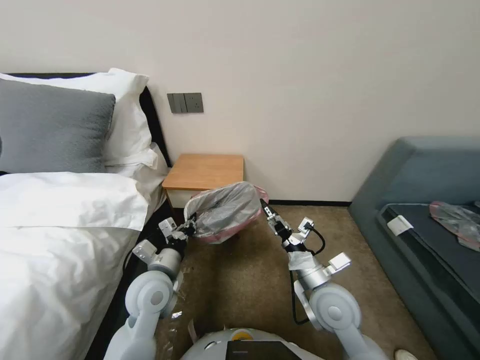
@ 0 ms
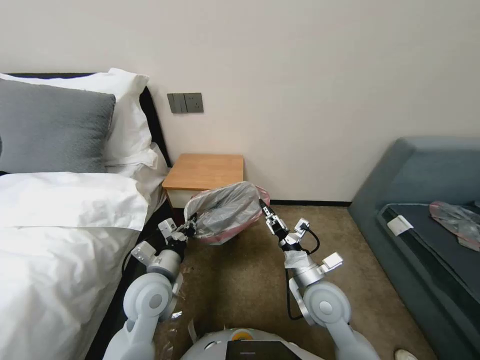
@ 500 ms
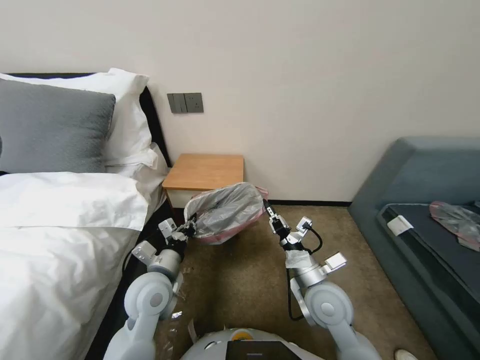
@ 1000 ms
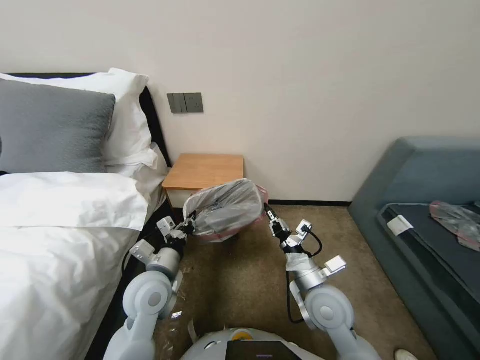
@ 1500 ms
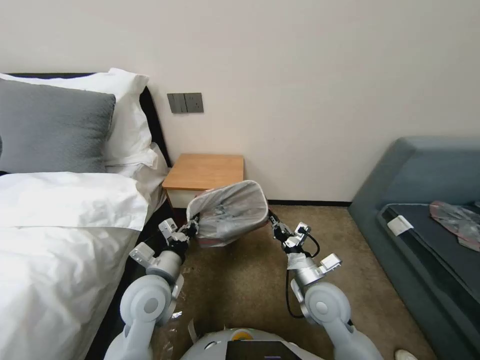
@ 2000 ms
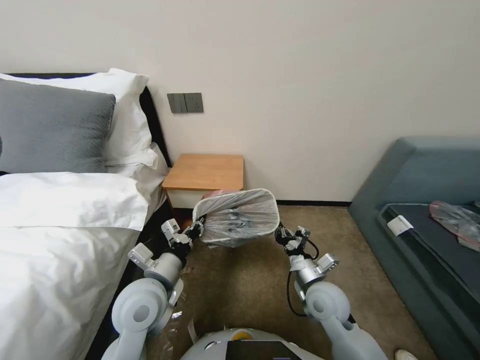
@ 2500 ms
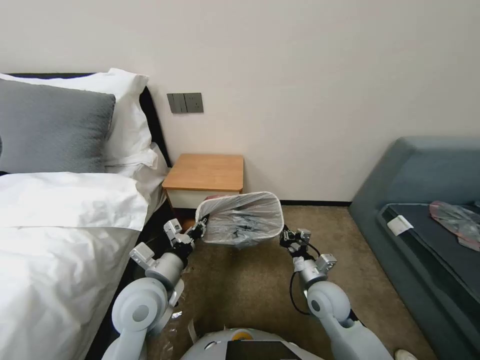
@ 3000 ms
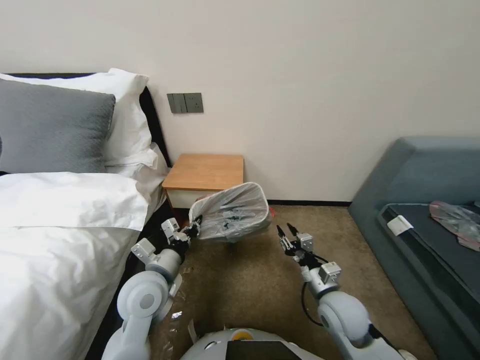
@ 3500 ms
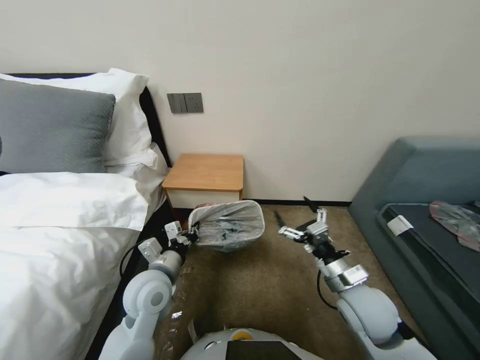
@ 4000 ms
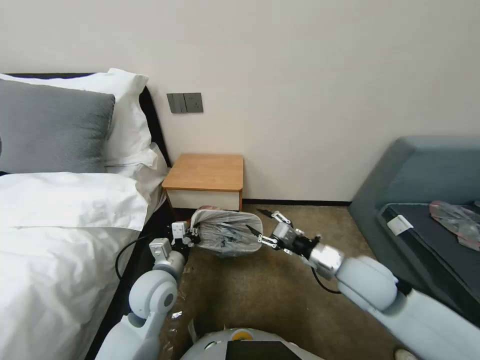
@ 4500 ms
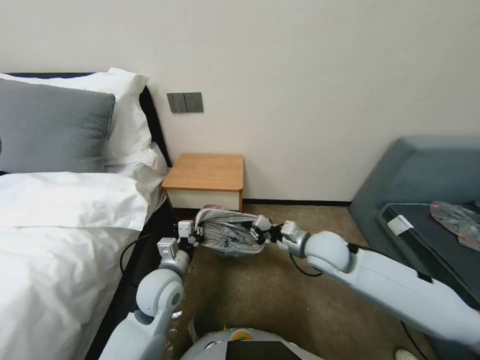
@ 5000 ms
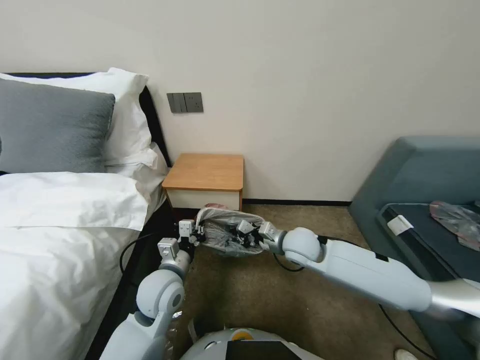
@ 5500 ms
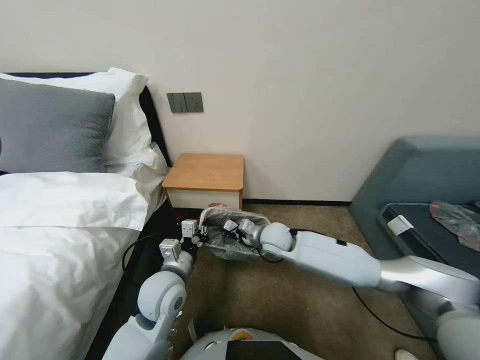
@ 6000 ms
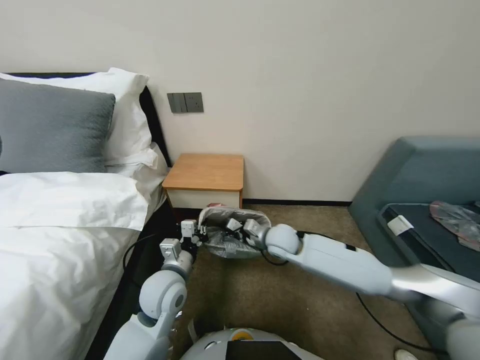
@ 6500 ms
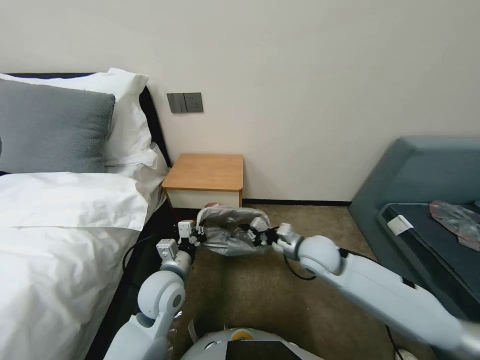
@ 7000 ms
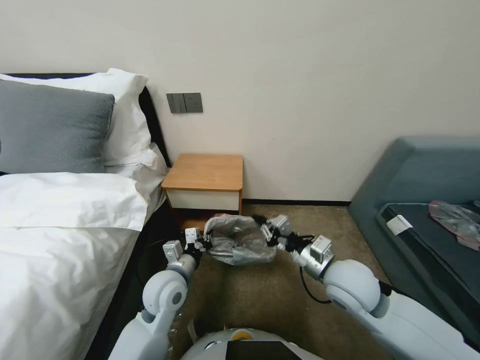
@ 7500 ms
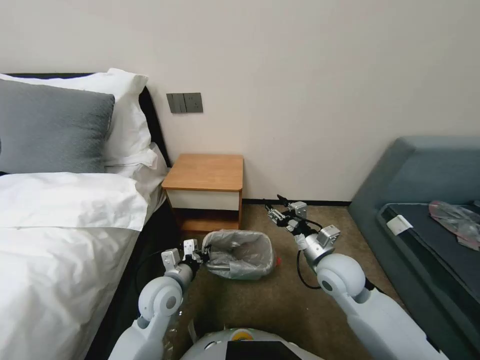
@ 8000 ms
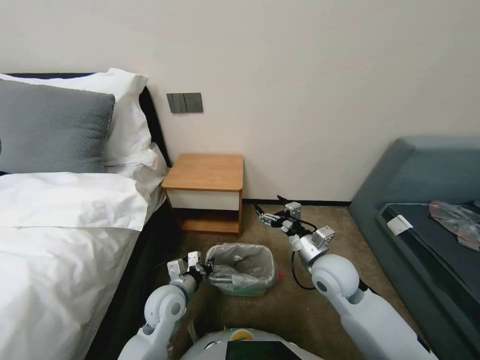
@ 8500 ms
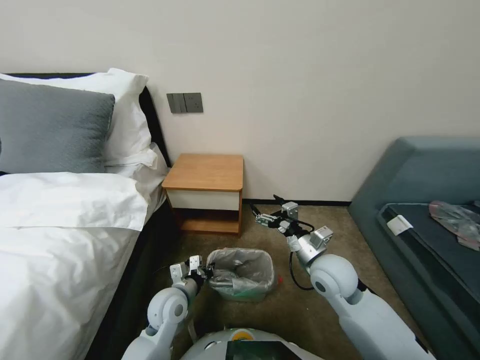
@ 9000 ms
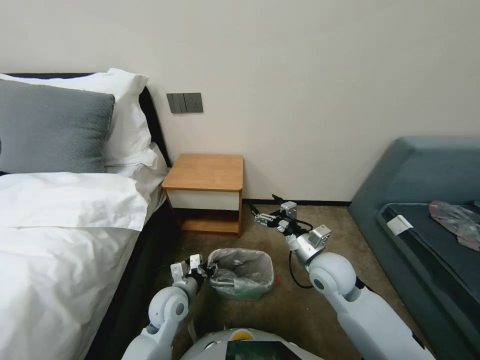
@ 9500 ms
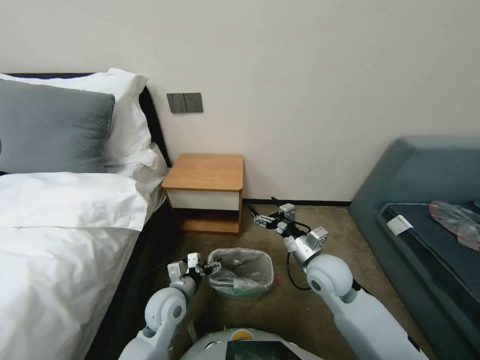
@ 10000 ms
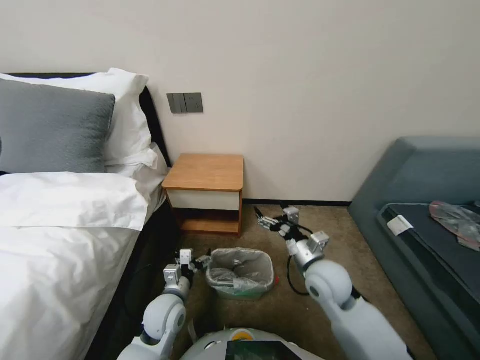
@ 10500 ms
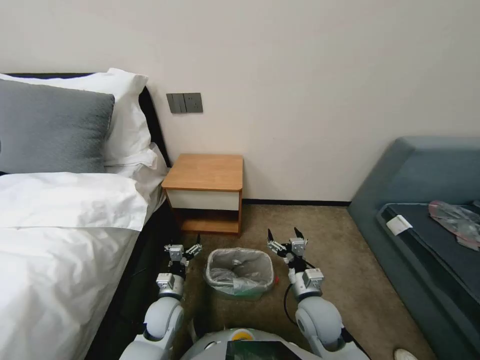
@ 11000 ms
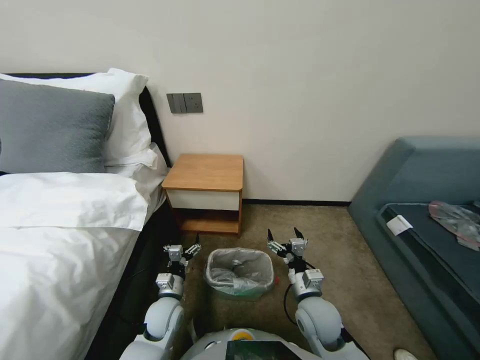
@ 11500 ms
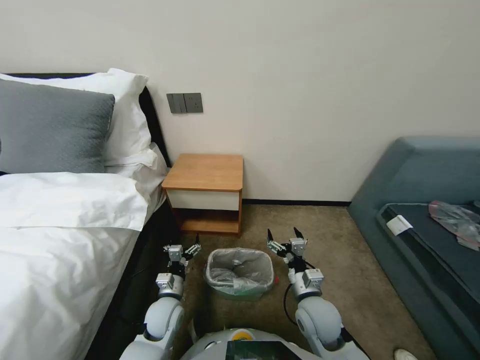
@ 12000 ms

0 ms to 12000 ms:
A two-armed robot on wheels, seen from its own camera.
Task of the whole recording: Pick up the garbage bag from the table and place it over the trash can.
0 ms to 2000 ms: The right gripper closes.
2000 ms to 4000 ms: The right gripper is displaced to the right by approximately 5 cm, and opens.
4000 ms to 6000 ms: The right gripper is displaced forward and to the left by about 25 cm, and closes its fingers.
6000 ms to 8000 ms: The right gripper shifts about 15 cm backward and to the right, and opens.
8000 ms to 10000 ms: The left gripper ends up about 5 cm from where it was, and opens up, while the right gripper opens.
10000 ms to 12000 ms: The left gripper moves downward, roughly 5 cm. Meanwhile the right gripper goes about 10 cm downward and backward.

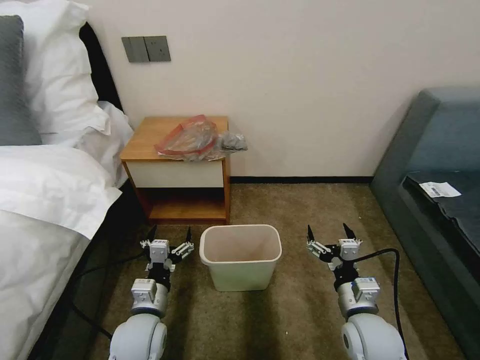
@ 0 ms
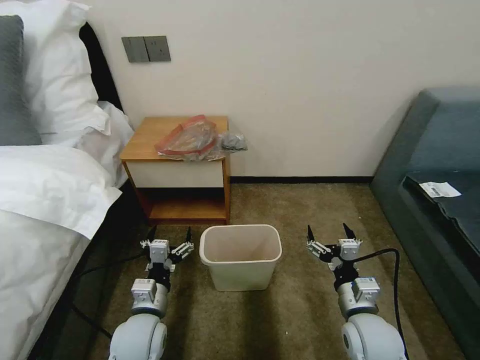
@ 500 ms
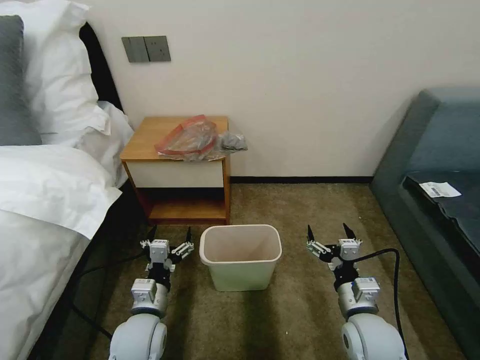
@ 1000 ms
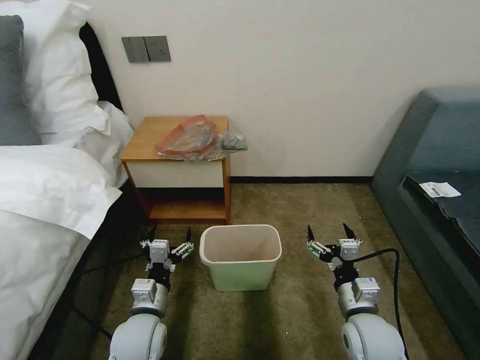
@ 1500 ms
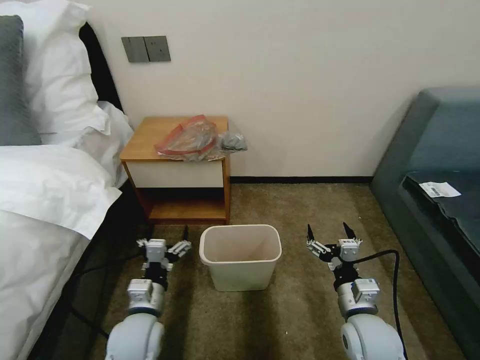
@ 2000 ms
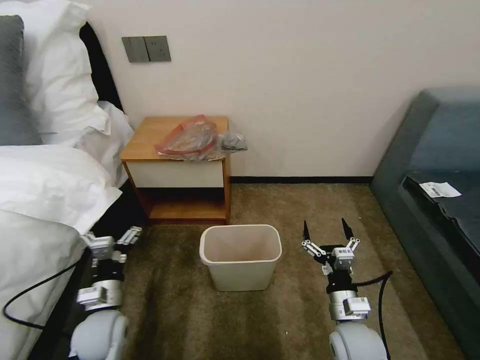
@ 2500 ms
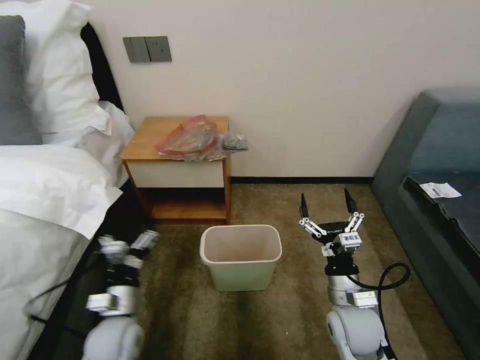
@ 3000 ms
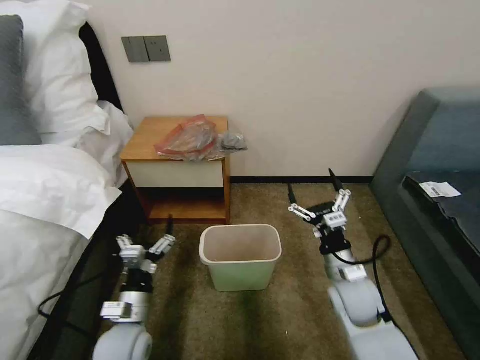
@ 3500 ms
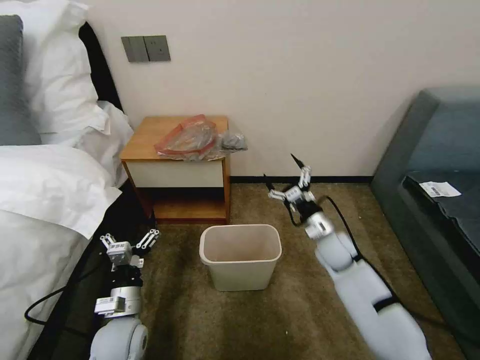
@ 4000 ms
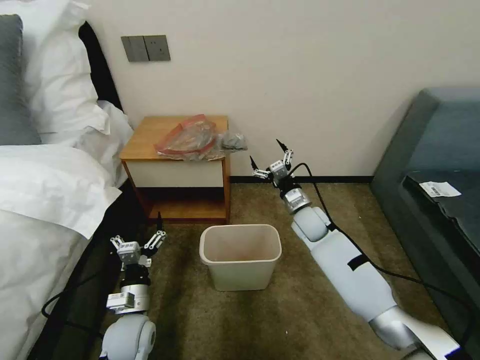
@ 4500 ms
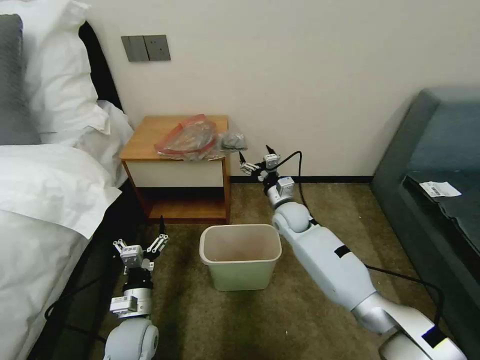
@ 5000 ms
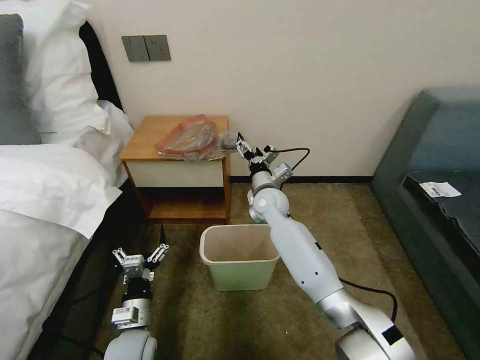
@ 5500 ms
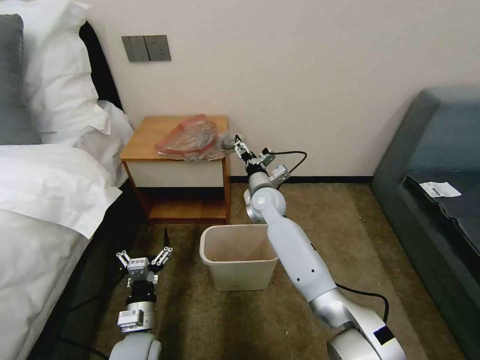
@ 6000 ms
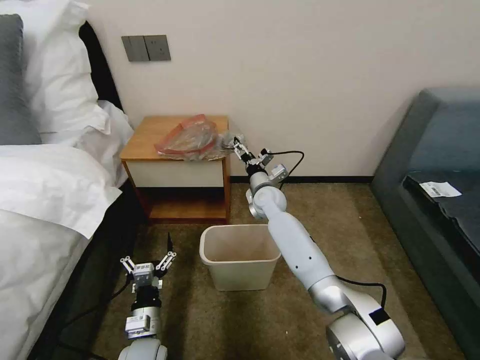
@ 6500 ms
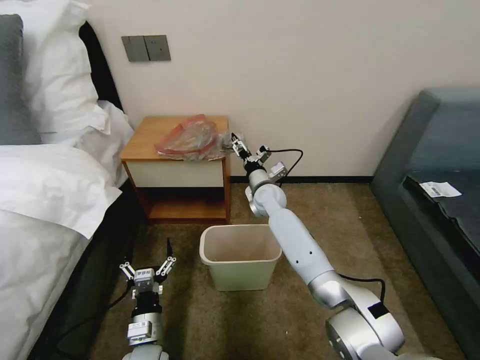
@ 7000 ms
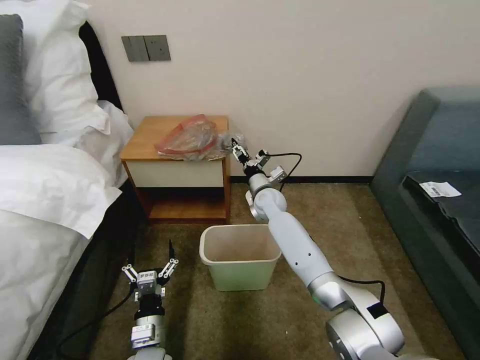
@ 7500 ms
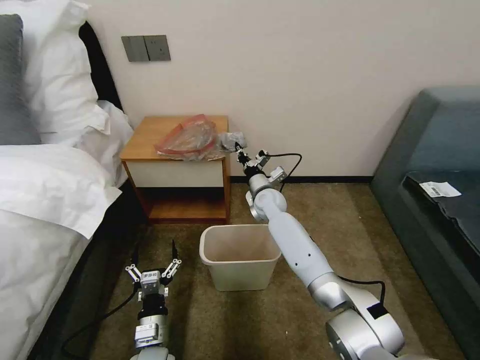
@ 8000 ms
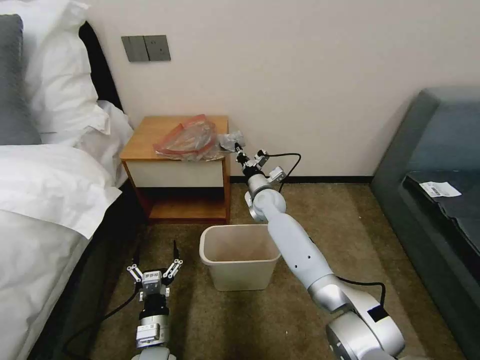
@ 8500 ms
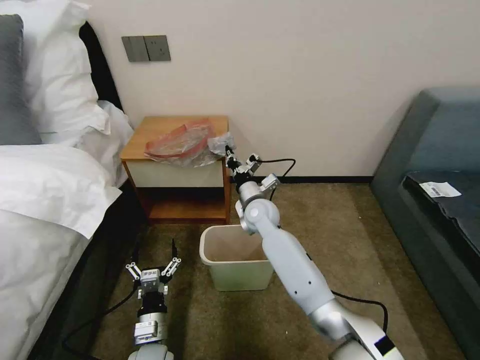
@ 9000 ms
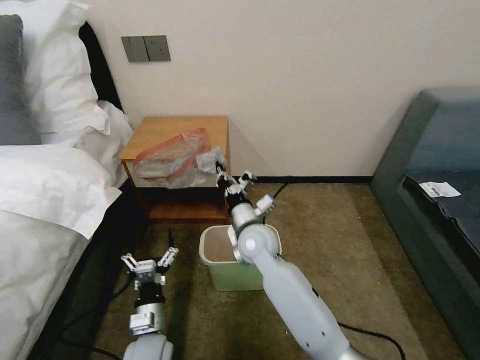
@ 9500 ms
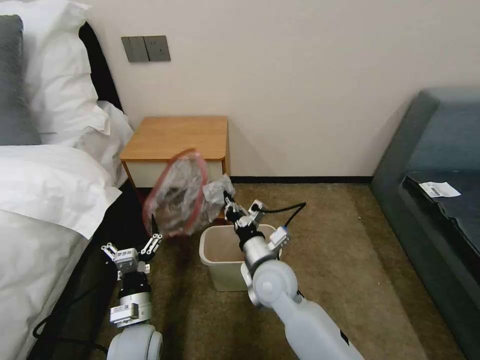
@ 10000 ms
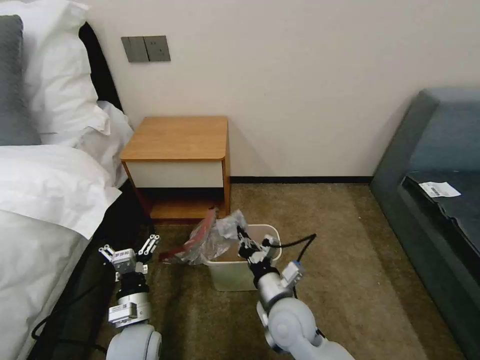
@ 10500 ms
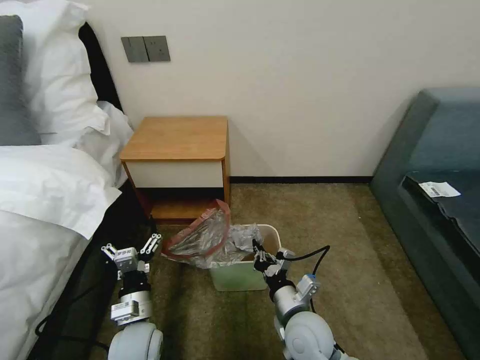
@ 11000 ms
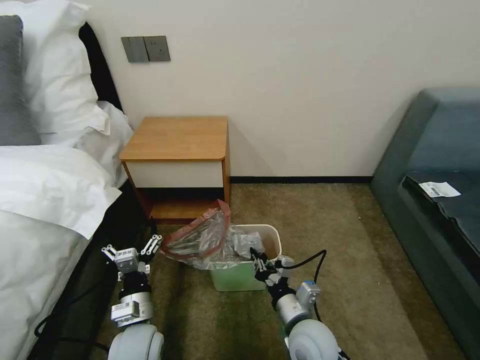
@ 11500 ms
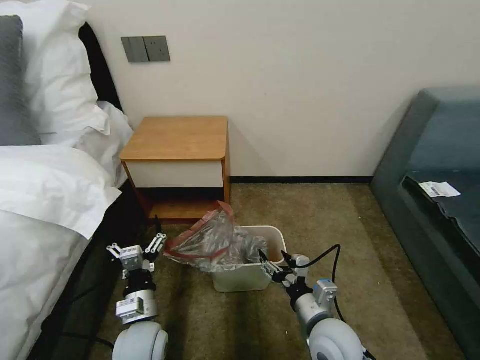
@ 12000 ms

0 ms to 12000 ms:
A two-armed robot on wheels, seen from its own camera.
Task of the whole recording: Pick up the garbage bag from the table and place it over the trash can.
2000 ms to 4000 ms: The right gripper moves forward, roughly 20 cm.
4000 ms to 6000 ms: The right gripper heads to the left and forward, covering approximately 20 cm. Meanwhile the left gripper moves roughly 5 cm.
6000 ms to 8000 ms: The right gripper shifts by about 5 cm, and closes its fingers.
8000 ms to 10000 ms: The right gripper heads backward, covering approximately 25 cm. Meanwhile the left gripper shifts some 5 cm upward.
10000 ms to 12000 ms: The right gripper moves to the right and backward, some 15 cm, and opens up.

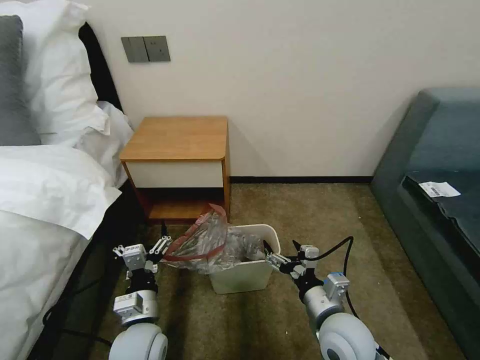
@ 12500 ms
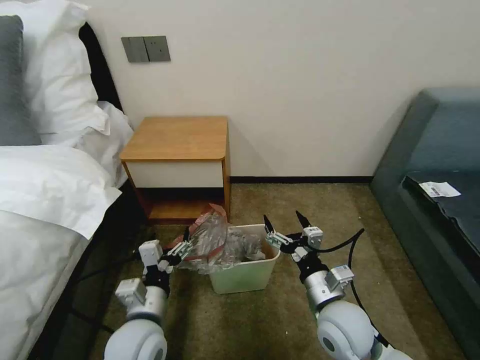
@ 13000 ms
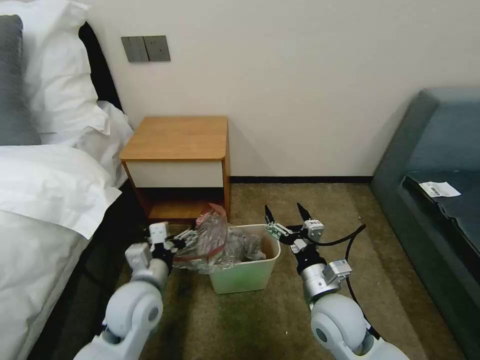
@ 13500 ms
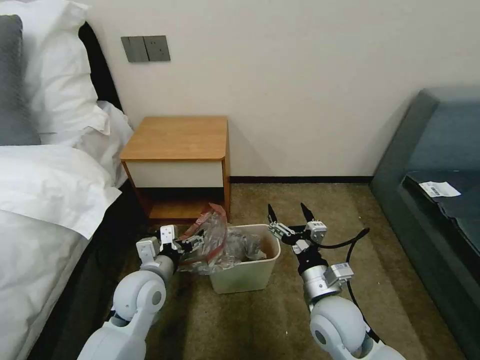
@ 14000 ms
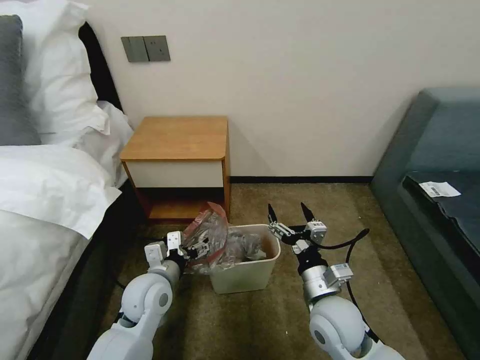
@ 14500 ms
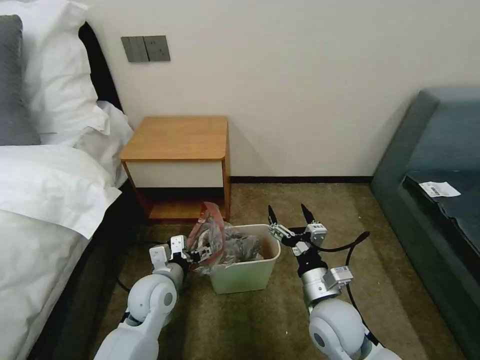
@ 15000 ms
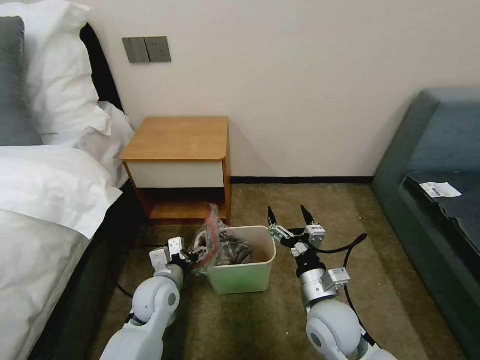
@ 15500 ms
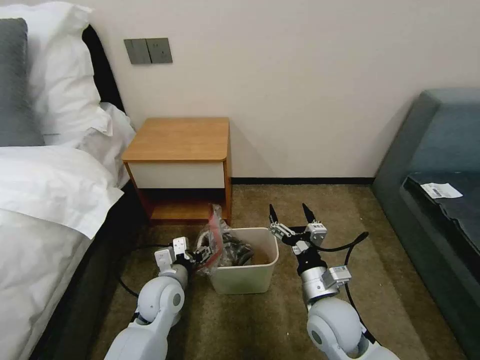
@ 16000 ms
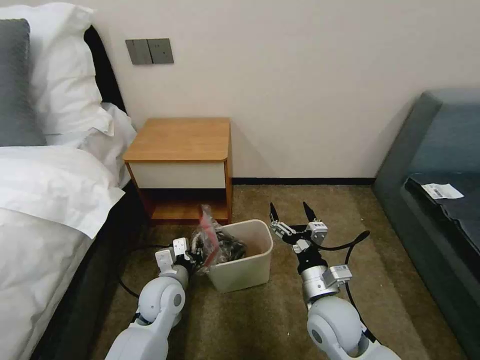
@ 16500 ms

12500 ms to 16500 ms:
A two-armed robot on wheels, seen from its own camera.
Task of the whole recording: Pick up the garbage bag from the table and place it over the trash can.
12500 ms to 14500 ms: The left gripper moves forward, roughly 10 cm.
14500 ms to 16500 ms: The left gripper closes.
